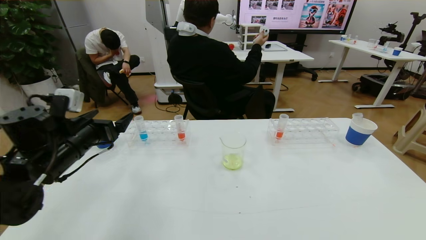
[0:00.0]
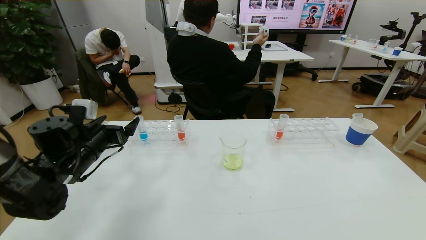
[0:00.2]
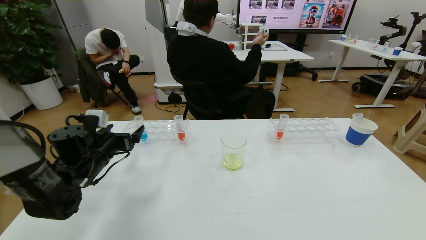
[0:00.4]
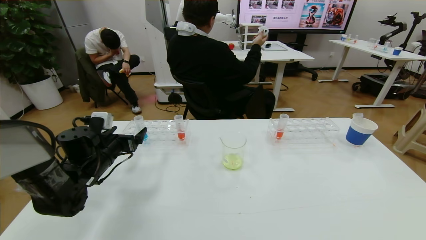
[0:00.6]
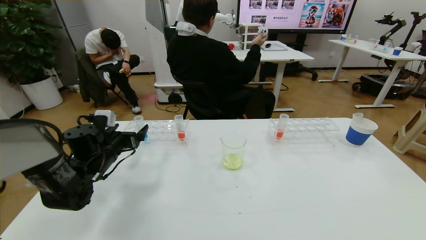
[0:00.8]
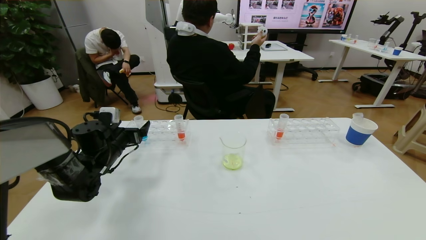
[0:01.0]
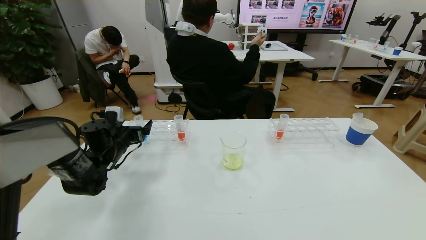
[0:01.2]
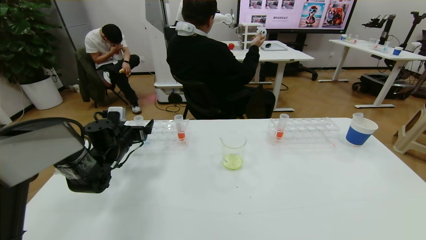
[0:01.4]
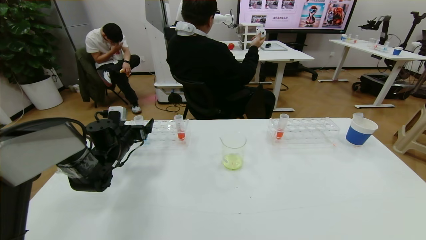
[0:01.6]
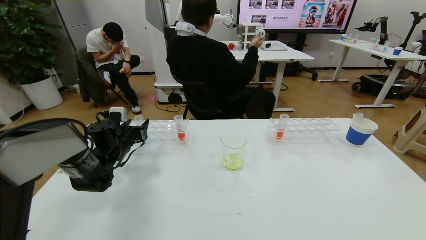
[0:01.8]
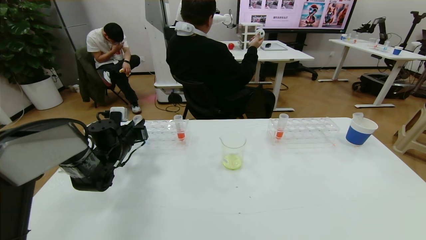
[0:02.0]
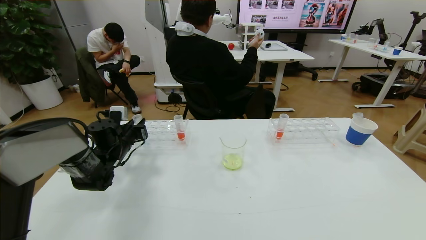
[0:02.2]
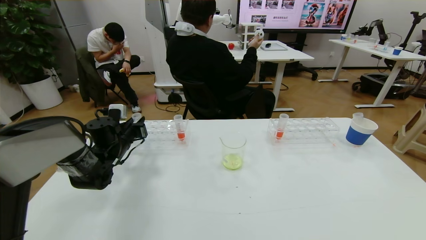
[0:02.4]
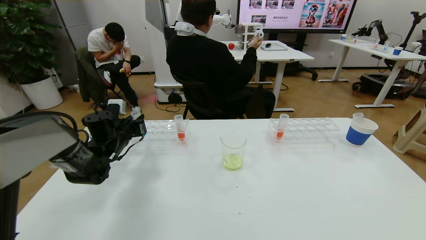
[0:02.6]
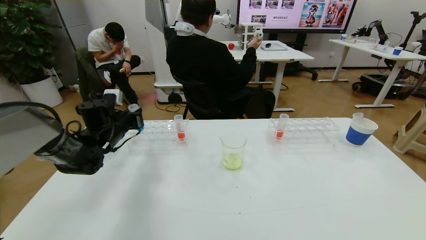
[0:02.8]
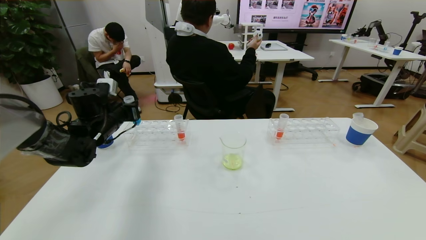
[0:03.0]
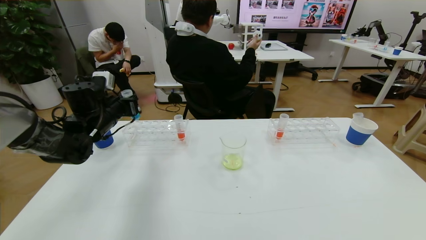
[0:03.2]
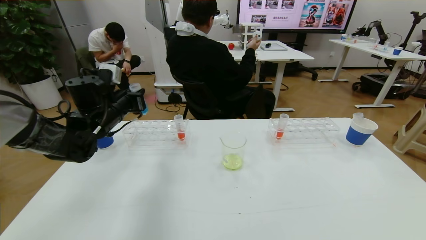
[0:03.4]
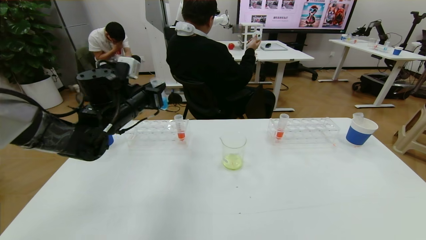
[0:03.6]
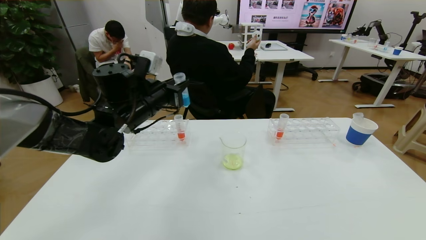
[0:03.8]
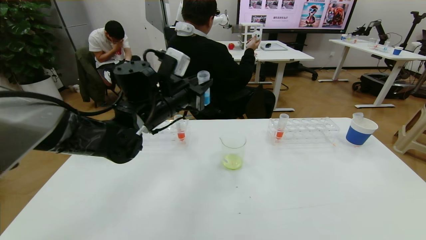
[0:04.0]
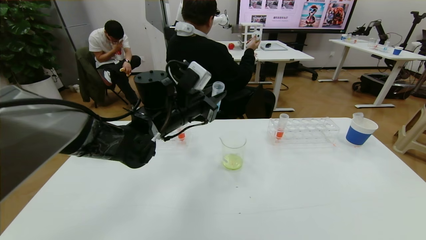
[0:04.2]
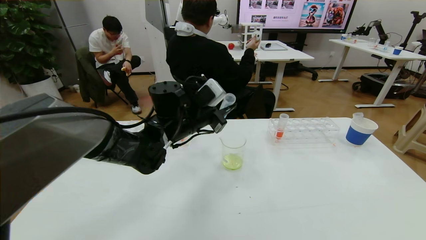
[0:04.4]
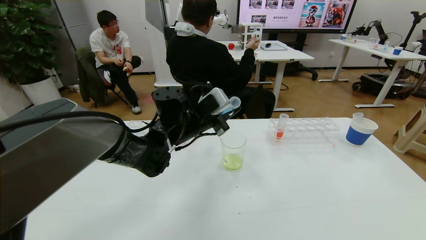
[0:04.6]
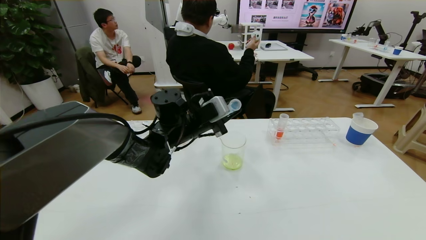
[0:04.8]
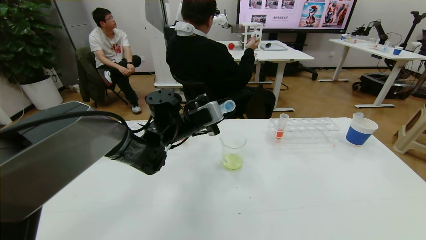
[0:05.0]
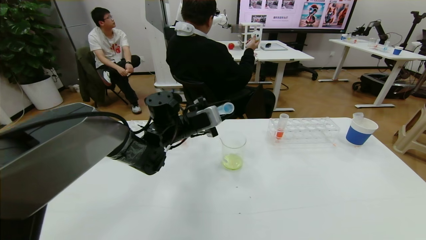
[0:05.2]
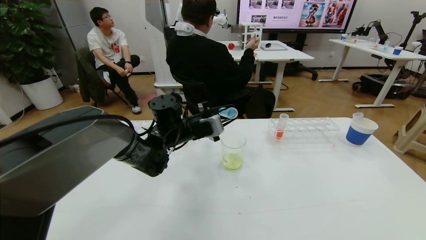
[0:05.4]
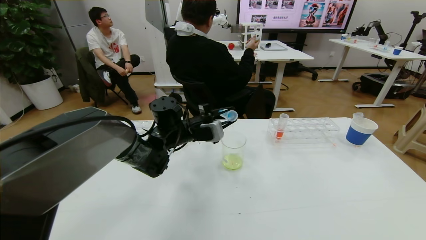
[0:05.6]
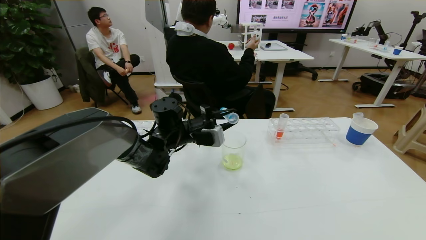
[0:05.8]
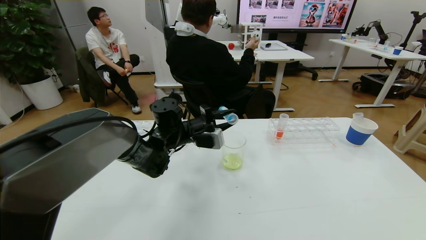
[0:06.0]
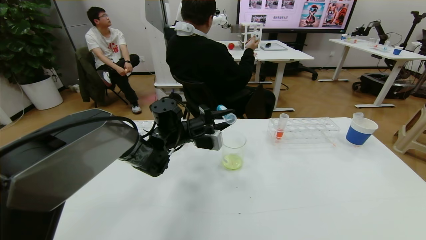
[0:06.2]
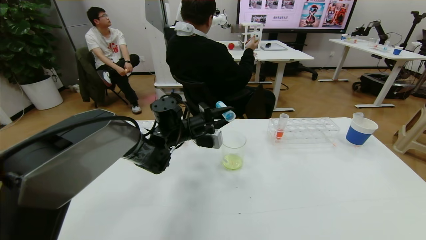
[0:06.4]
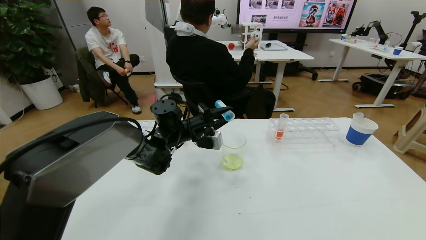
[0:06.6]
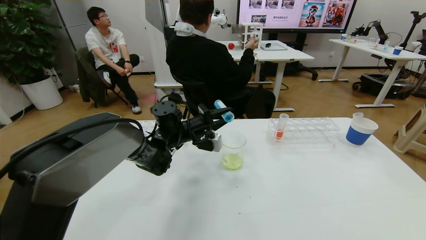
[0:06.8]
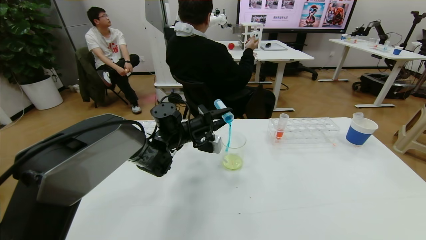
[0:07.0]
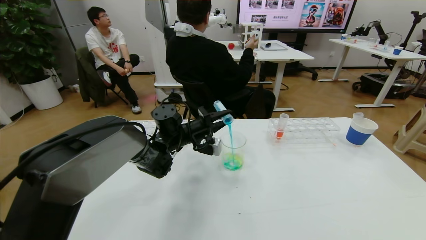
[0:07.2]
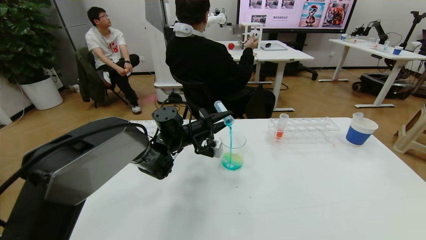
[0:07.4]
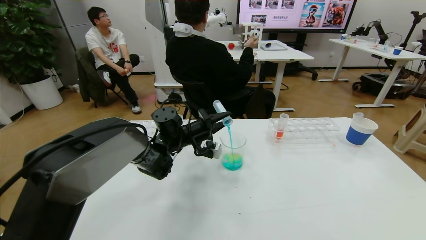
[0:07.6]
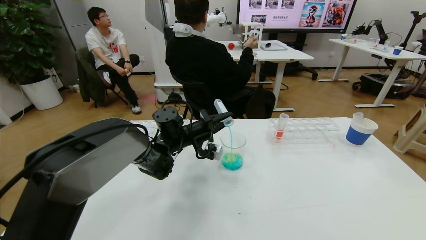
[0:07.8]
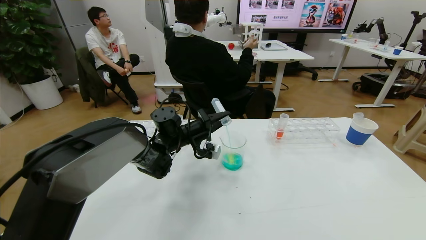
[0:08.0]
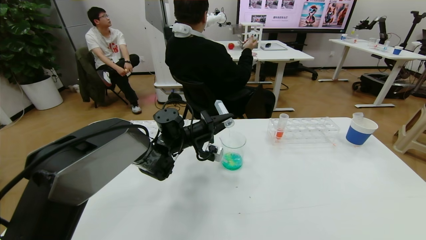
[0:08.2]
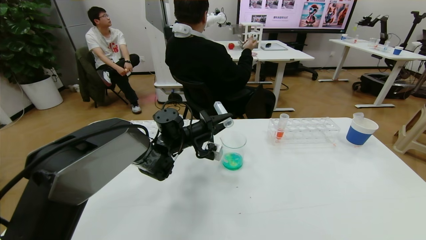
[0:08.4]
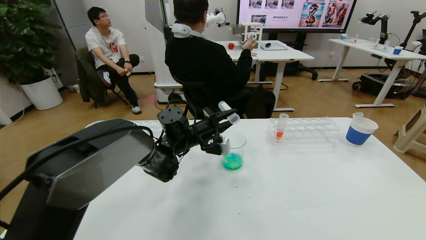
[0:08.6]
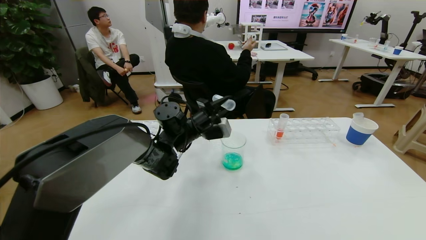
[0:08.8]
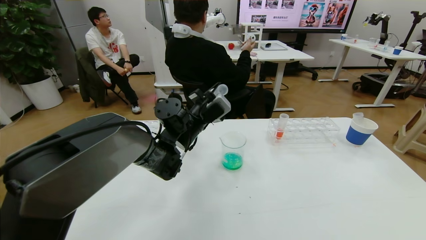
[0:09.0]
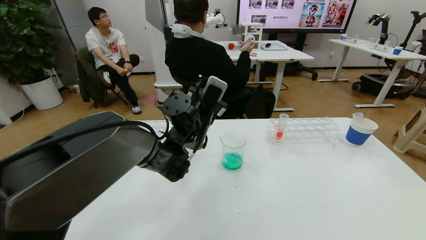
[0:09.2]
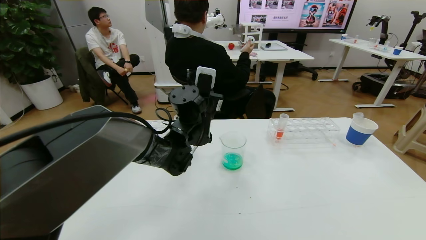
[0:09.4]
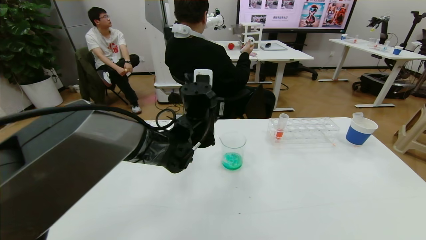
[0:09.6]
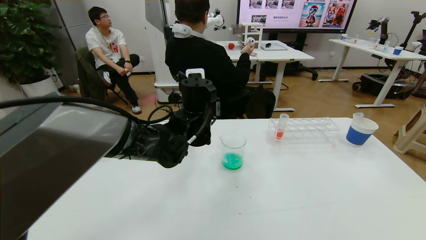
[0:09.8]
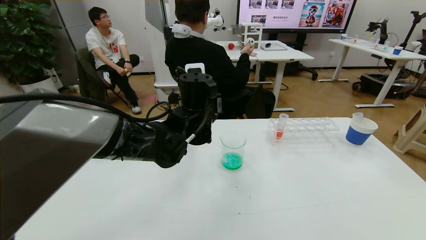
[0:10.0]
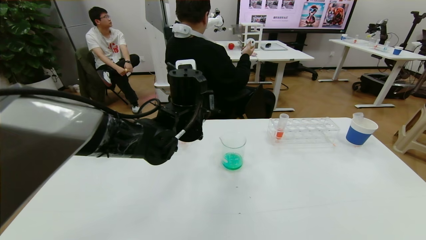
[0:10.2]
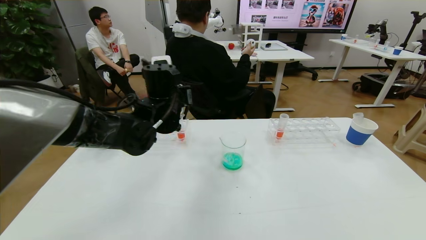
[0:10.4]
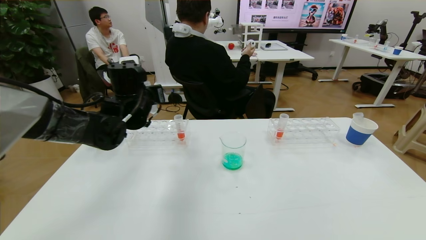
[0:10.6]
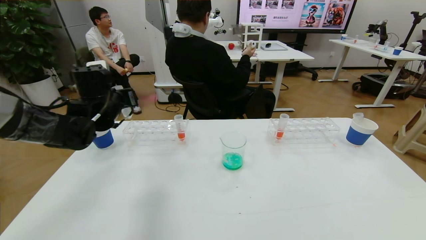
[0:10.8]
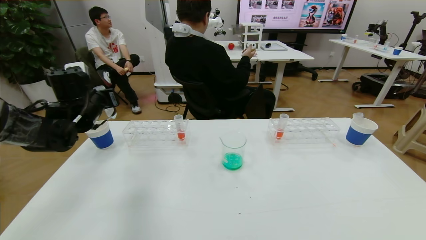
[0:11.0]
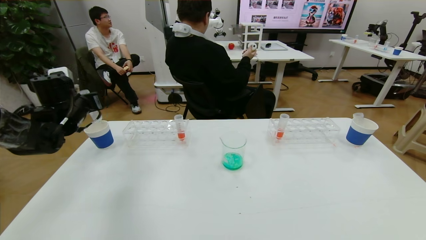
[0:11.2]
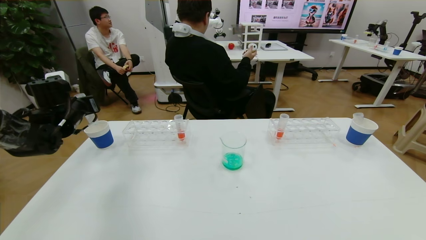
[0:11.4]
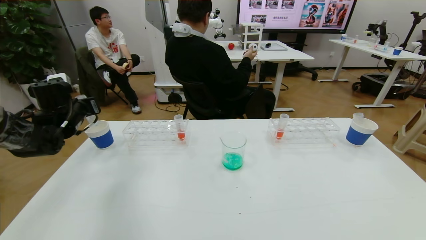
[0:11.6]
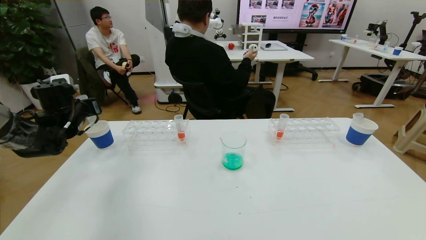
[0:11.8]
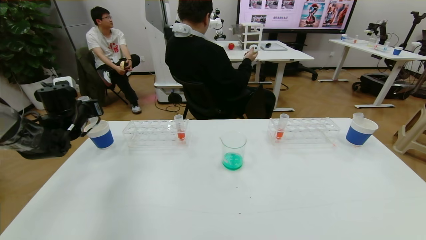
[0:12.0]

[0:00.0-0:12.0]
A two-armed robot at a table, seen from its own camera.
Task of the whole recording: pick up the test tube with yellow pigment and the test tube with blue pigment by grippers and pour them into the beaker.
0:00.0 to 0:01.6: The left gripper moves forward and downward, some 15 cm.
0:01.6 to 0:03.0: The left gripper heads upward, covering roughly 10 cm, and closes up.
0:03.0 to 0:04.4: The left gripper travels to the right by roughly 20 cm.
0:04.4 to 0:06.0: The left gripper is displaced downward by about 5 cm.
0:07.6 to 0:09.0: The left gripper is displaced upward by approximately 5 cm.
0:09.0 to 0:10.4: The left gripper heads upward and to the left, covering roughly 10 cm.
0:10.4 to 0:12.0: The left gripper shifts roughly 25 cm to the left.

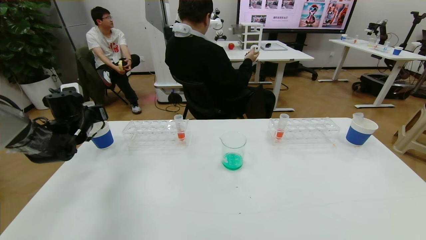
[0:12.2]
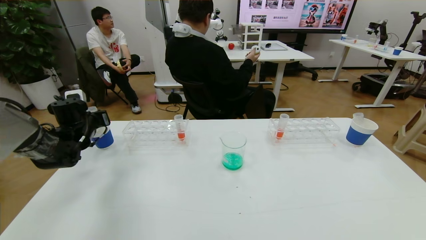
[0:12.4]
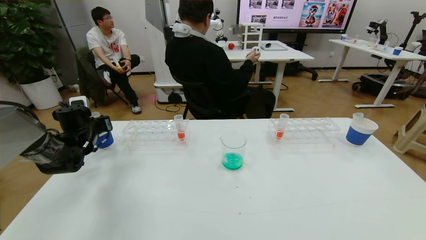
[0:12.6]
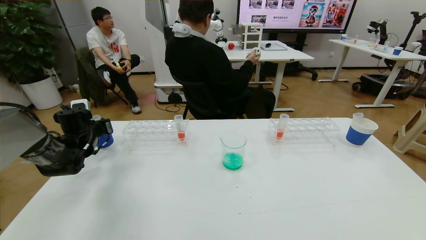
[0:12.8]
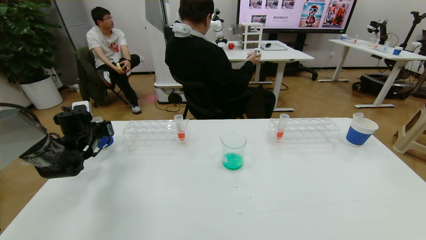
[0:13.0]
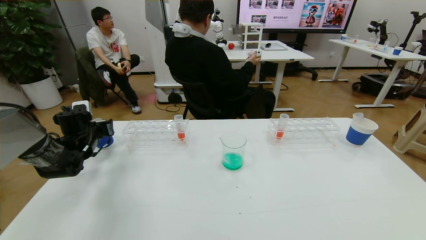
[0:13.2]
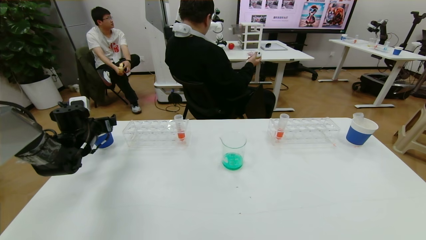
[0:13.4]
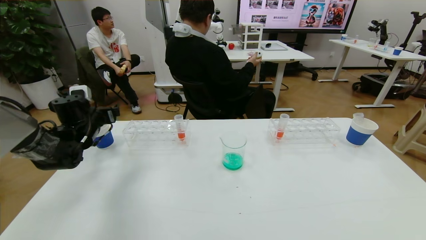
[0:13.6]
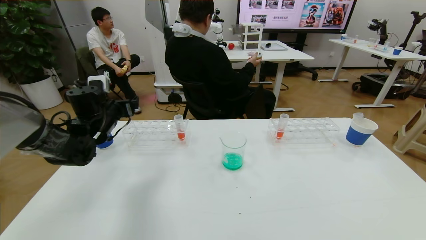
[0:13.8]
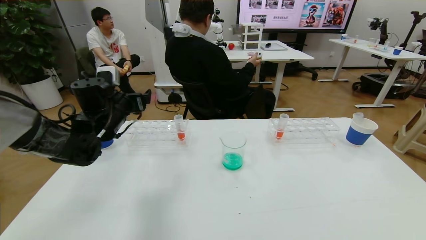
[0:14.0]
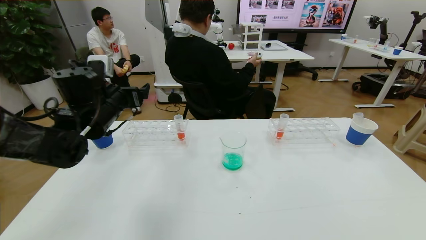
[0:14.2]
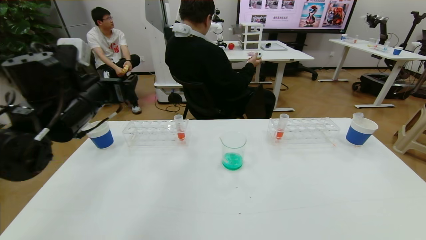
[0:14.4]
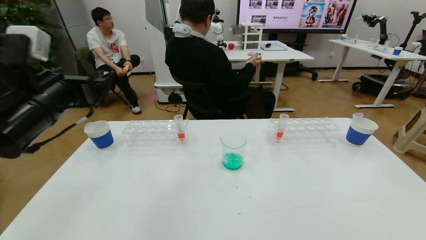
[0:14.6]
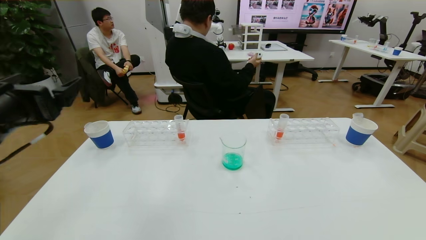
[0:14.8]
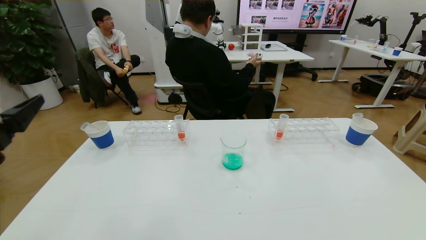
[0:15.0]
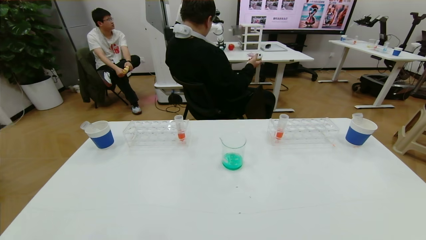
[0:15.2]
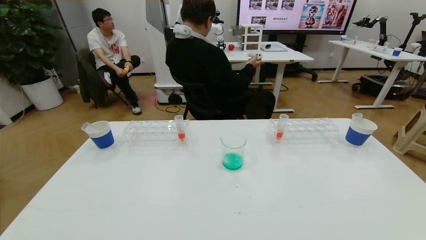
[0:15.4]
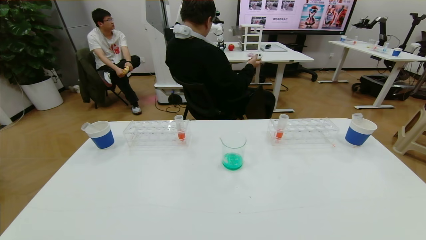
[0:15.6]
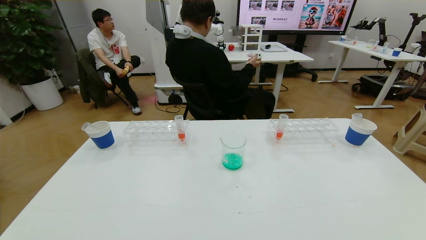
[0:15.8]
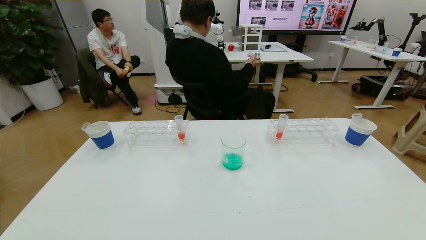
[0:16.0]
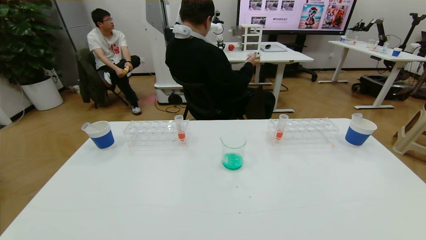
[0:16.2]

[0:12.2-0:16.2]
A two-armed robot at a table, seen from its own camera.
Task of the whole recording: pick up the test tube with yellow pigment and the test tube with blue pigment by grippers and pour them into the beaker.
Step, 0:12.2 to 0:16.2: Pour the blue reagent into the graduated cylinder and place the test tube into the paper cup.
0:12.2 to 0:13.6: The left gripper opens its fingers.
0:13.6 to 0:14.8: The left gripper moves backward and upward, some 25 cm.
0:14.8 to 0:16.2: The left gripper is displaced backward and downward by approximately 30 cm.
